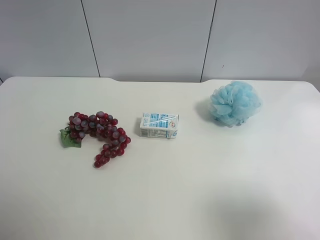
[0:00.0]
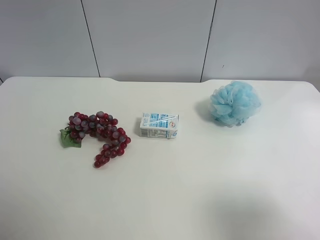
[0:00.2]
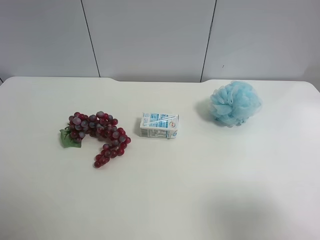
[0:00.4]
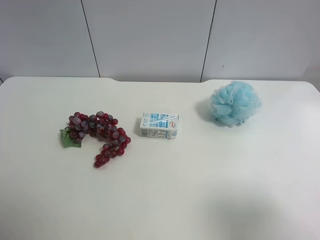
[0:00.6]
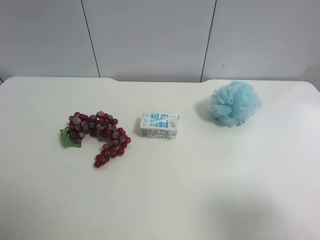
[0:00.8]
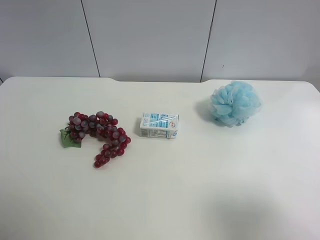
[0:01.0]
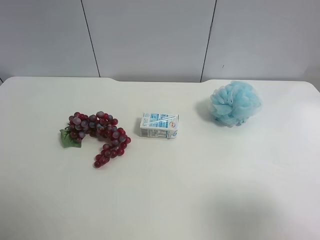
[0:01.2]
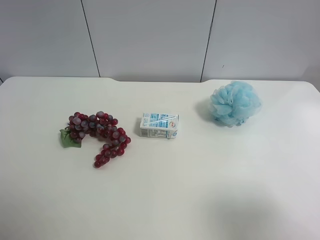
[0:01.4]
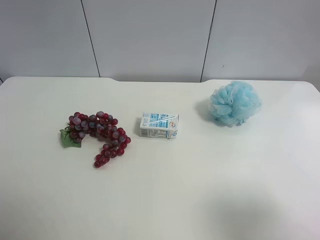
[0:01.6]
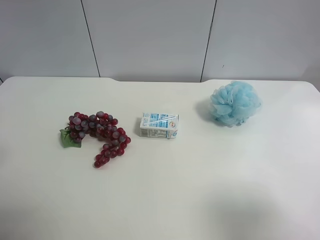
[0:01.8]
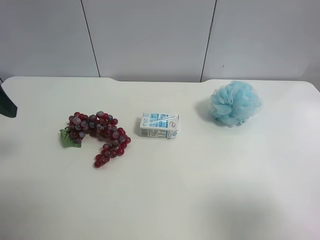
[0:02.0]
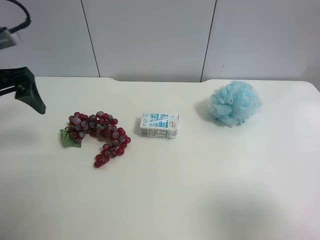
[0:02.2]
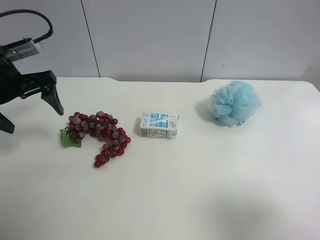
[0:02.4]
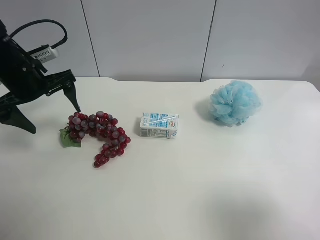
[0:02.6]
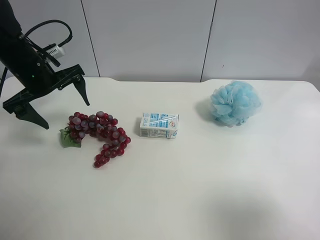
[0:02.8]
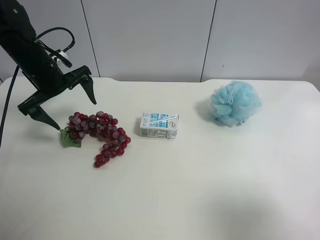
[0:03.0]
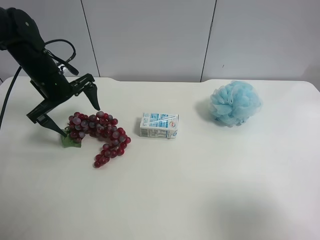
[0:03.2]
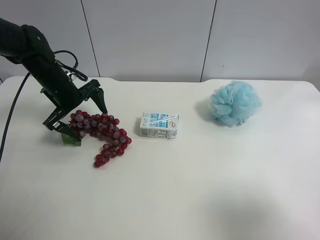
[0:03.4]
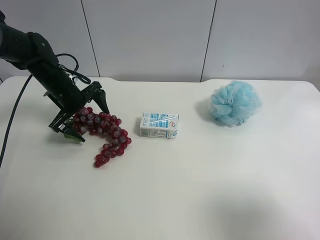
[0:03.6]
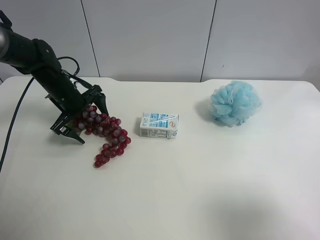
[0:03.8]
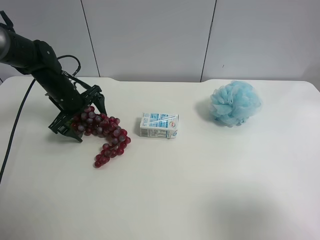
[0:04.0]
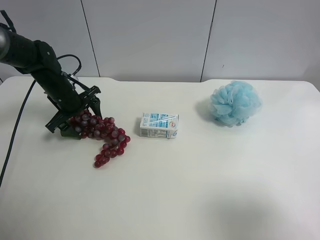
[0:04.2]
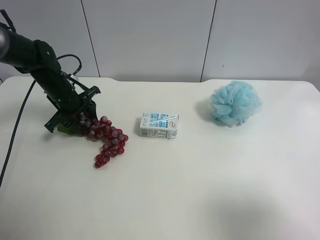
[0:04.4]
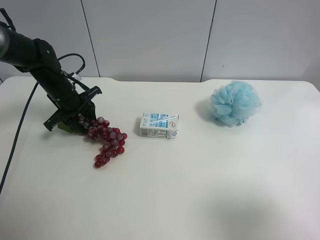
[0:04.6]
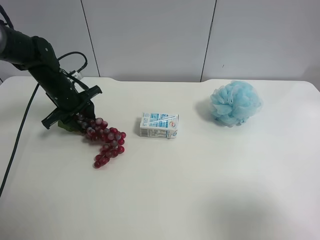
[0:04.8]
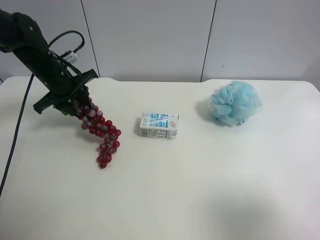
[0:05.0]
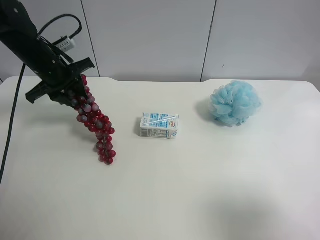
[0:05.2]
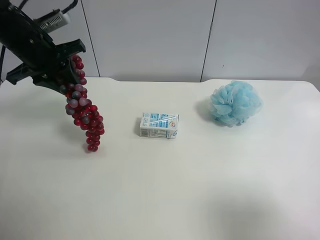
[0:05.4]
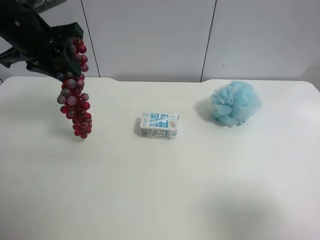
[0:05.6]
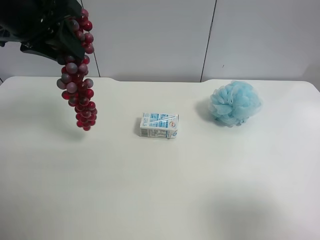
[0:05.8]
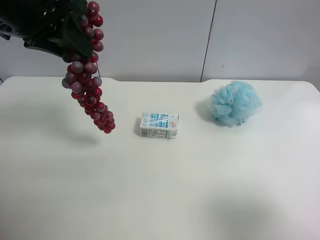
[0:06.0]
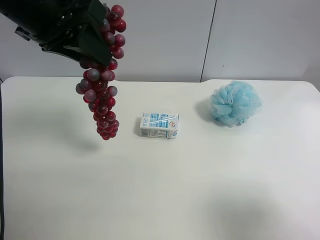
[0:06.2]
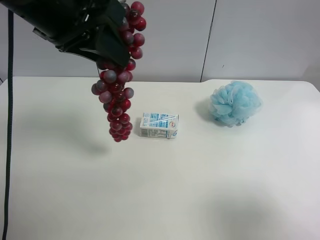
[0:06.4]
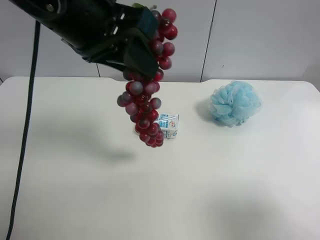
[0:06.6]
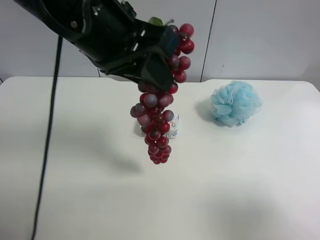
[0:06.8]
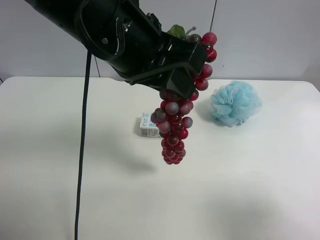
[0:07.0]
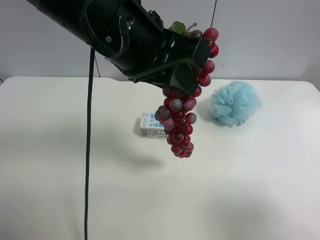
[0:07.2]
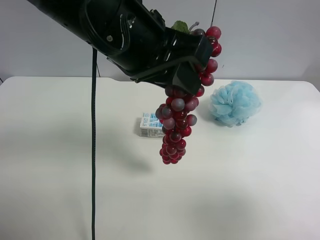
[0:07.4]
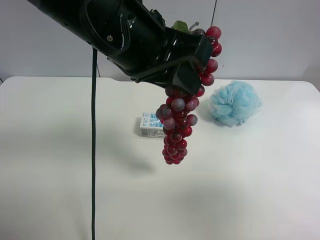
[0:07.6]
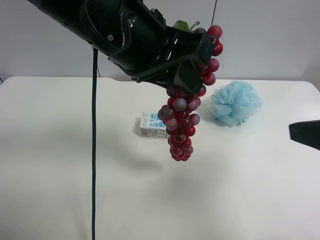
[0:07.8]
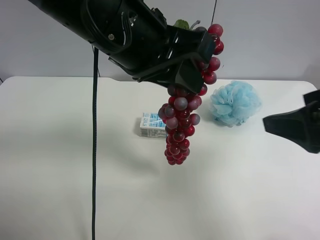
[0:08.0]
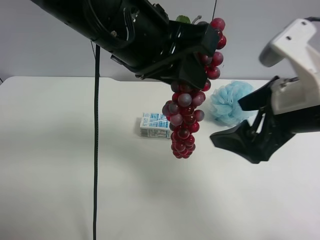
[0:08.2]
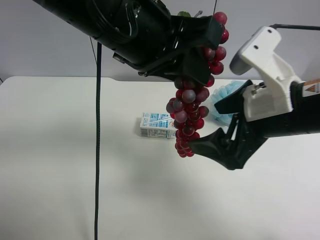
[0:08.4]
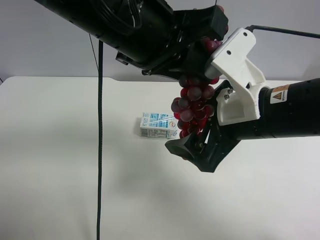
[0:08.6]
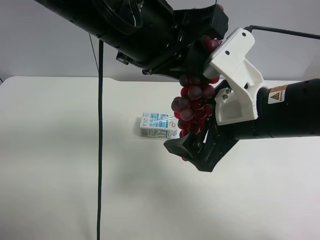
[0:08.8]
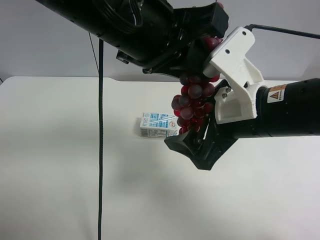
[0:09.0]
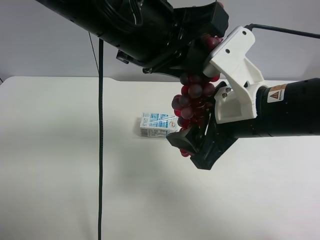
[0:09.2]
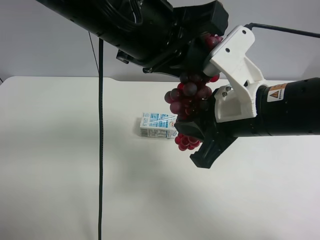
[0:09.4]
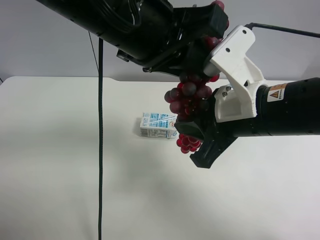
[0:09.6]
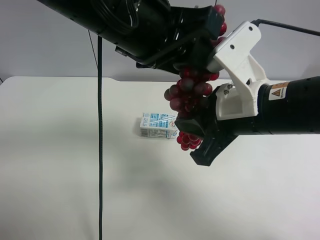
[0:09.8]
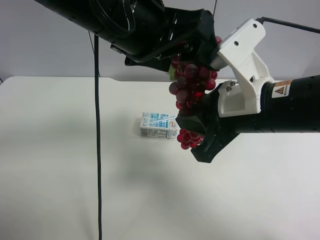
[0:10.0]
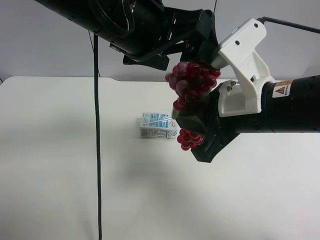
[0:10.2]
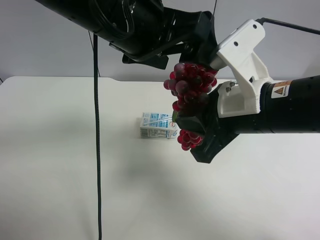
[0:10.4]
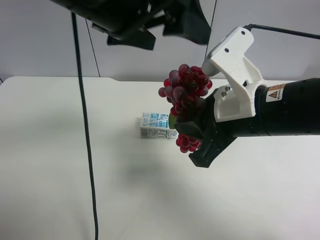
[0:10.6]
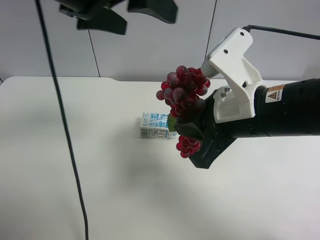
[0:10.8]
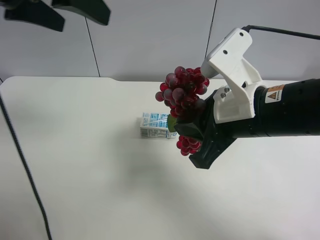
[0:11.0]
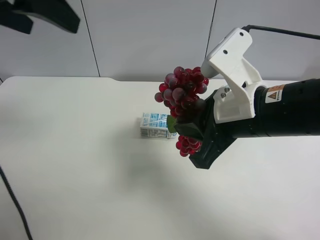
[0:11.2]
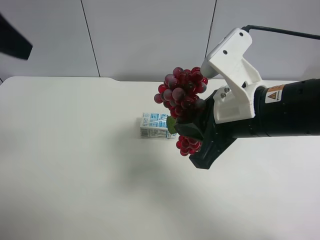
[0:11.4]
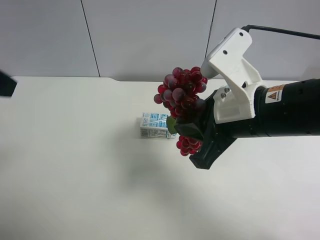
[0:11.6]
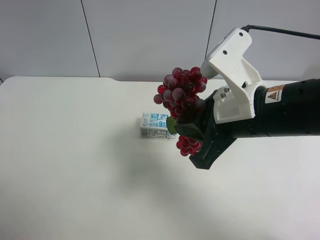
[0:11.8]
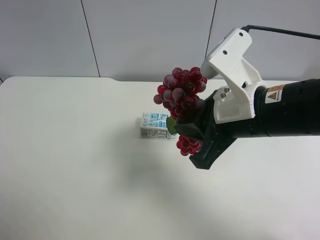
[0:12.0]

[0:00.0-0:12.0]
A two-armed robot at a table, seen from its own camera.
Task of the whole recording: use the left gripper to pick up the item and transfer it from the left gripper to the right gripper.
0:01.6 to 0:03.0: The left gripper heads forward and downward, covering roughly 30 cm.
0:03.0 to 0:04.4: The left gripper moves downward, approximately 10 cm, and closes its fingers.
0:04.4 to 0:06.0: The left gripper heads upward and backward, covering approximately 30 cm.
0:06.0 to 0:07.6: The left gripper shifts approximately 15 cm to the right, while the right gripper moves roughly 5 cm.
0:07.6 to 0:09.0: The right gripper moves to the left, forward and downward, about 20 cm.
0:09.0 to 0:10.4: The right gripper closes up; the left gripper opens its fingers.
0:10.4 to 0:12.0: The left gripper shifts some 30 cm to the left and backward.

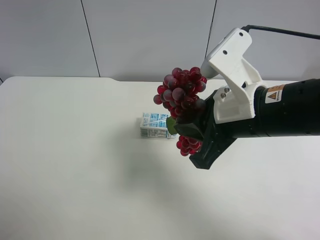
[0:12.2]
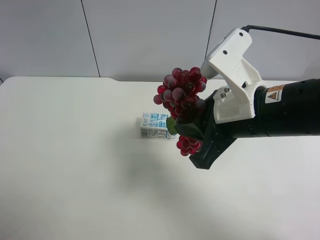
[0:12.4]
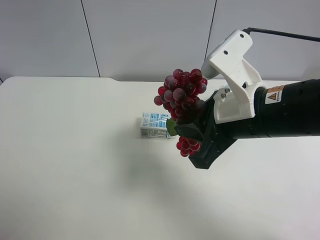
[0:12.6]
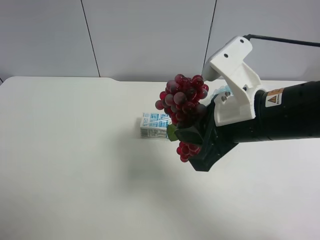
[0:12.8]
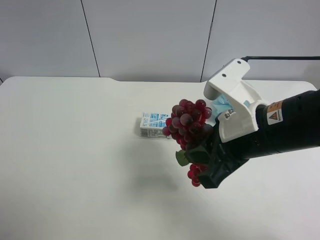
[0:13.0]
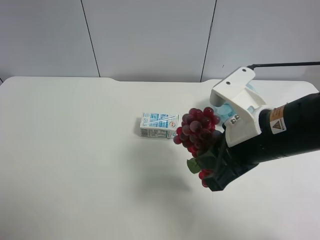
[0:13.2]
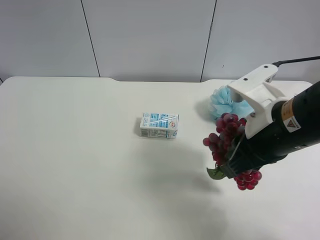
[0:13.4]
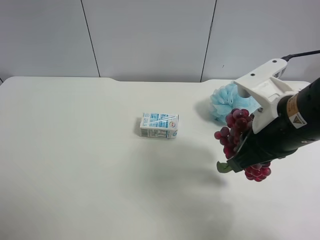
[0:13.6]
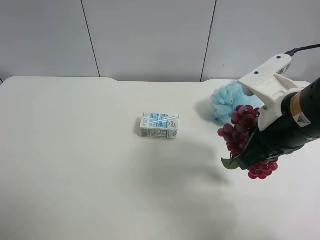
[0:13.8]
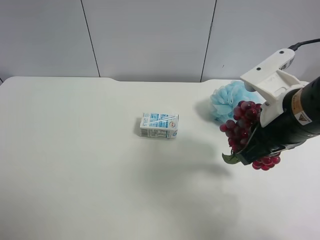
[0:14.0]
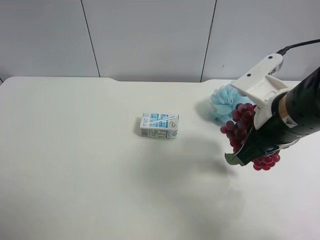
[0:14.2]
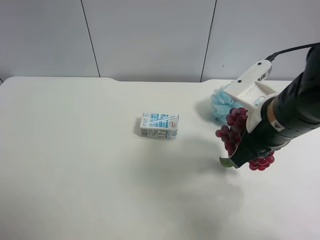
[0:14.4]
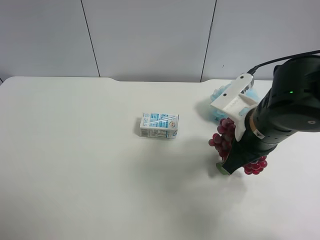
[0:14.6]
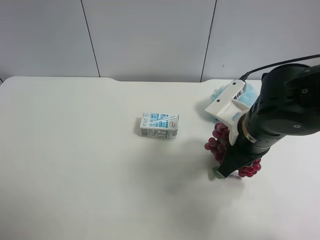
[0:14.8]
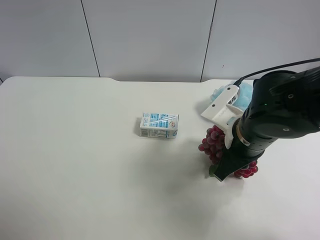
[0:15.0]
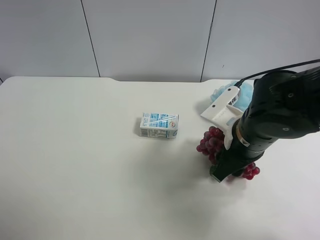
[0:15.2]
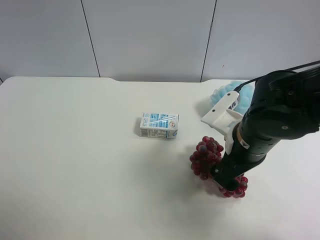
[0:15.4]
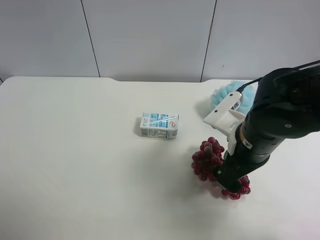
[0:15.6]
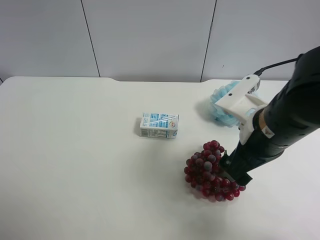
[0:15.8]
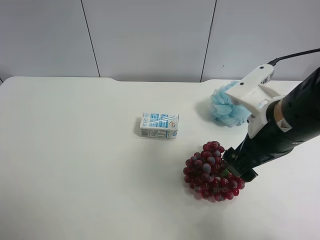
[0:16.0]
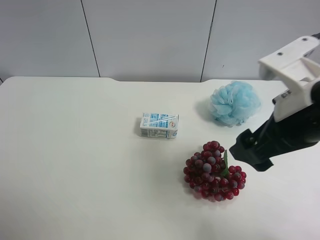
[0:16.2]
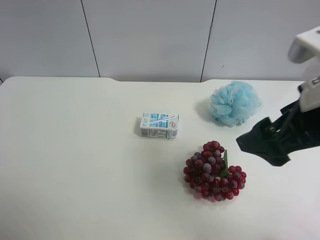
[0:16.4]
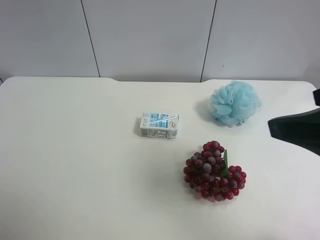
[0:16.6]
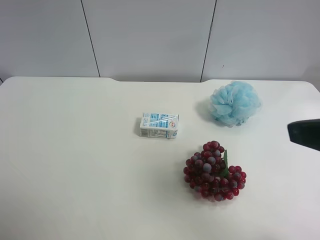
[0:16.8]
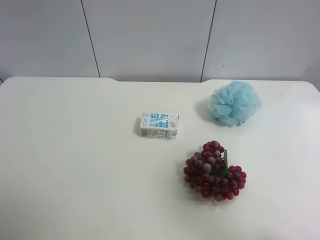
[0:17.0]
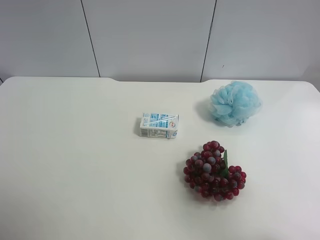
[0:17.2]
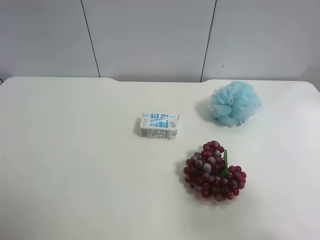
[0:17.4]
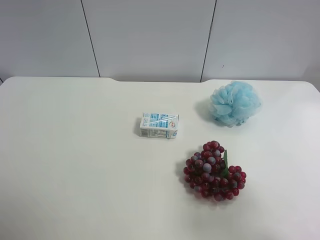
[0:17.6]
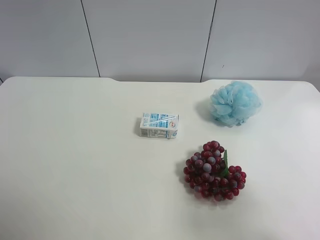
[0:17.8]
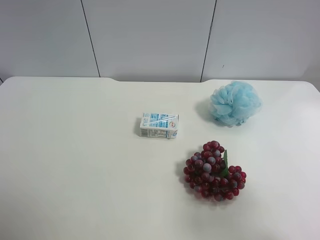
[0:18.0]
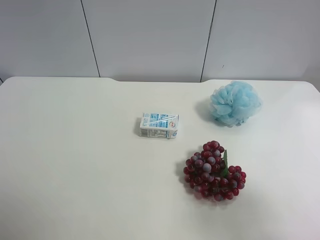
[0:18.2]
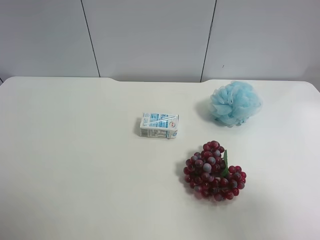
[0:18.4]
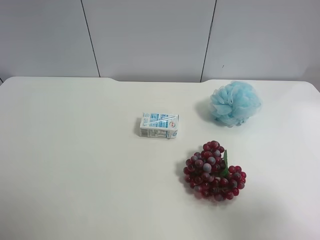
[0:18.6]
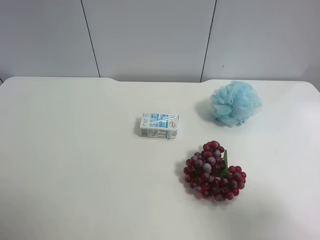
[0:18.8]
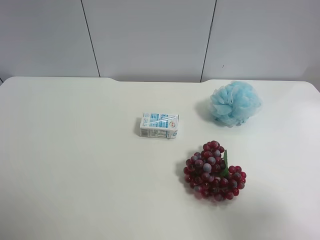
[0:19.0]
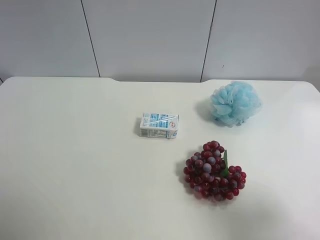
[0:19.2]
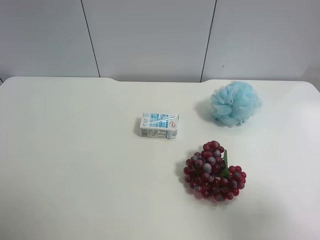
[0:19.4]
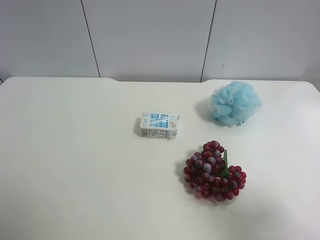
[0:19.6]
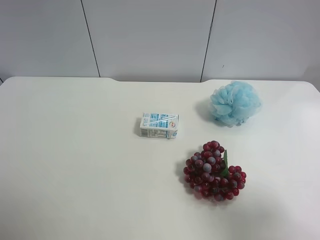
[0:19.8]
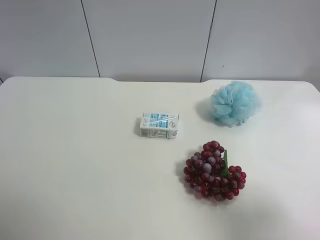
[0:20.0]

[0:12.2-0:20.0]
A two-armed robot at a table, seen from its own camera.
Task of the whole recording: use the left gripper to pick up the item and transfer it from the left gripper to the right gripper.
0:13.8 to 0:15.4: The right gripper heads downward, covering approximately 10 cm, and opens up.
0:15.4 to 0:16.8: The right gripper shifts about 25 cm upward, backward and to the right.
0:16.8 to 0:18.4: The right gripper moves backward and to the right, some 10 cm.
